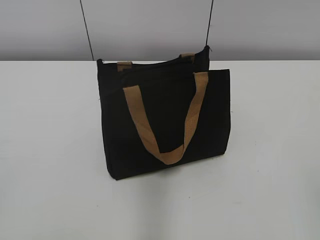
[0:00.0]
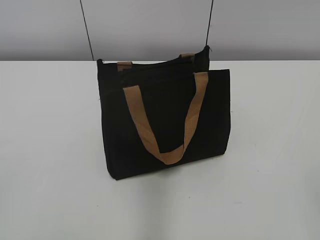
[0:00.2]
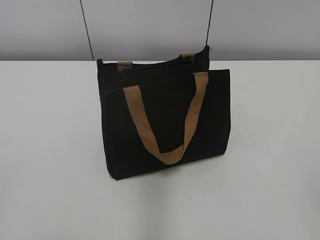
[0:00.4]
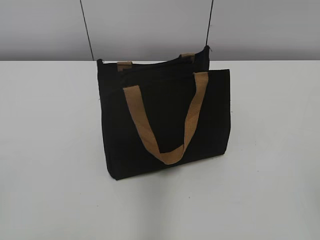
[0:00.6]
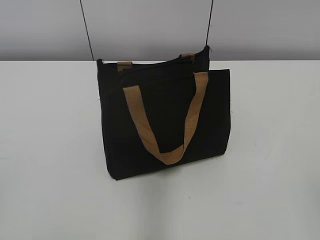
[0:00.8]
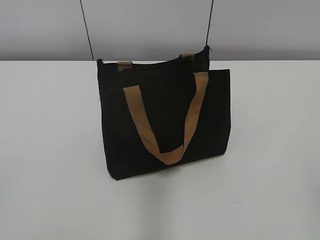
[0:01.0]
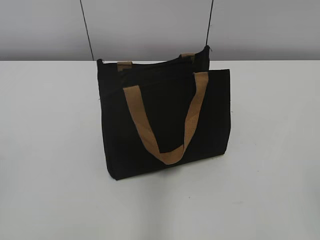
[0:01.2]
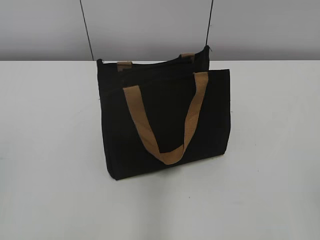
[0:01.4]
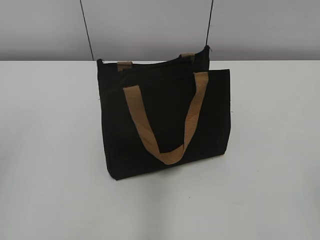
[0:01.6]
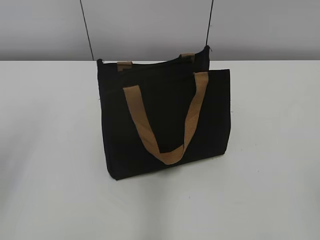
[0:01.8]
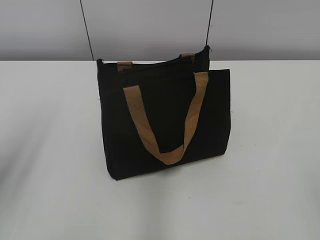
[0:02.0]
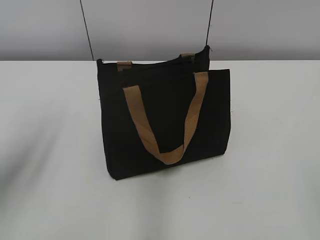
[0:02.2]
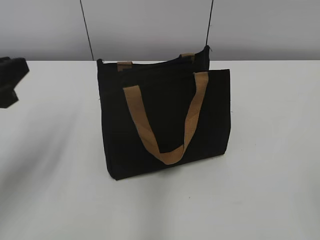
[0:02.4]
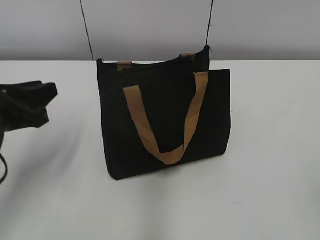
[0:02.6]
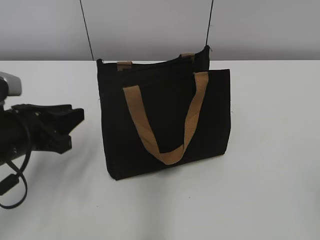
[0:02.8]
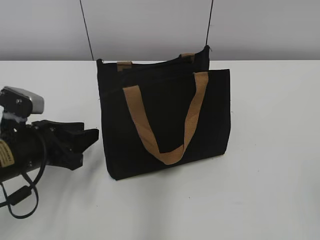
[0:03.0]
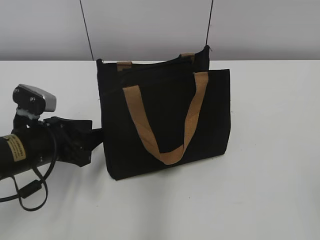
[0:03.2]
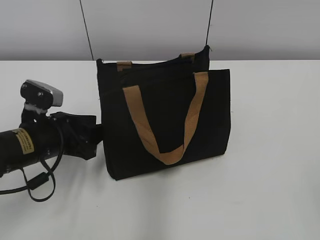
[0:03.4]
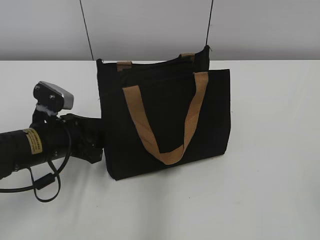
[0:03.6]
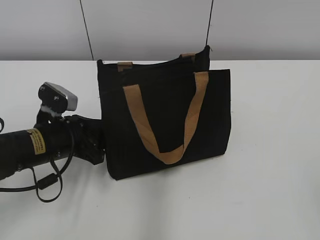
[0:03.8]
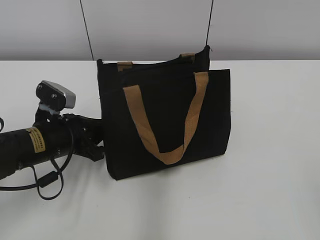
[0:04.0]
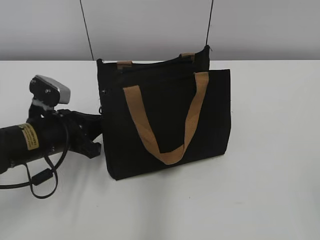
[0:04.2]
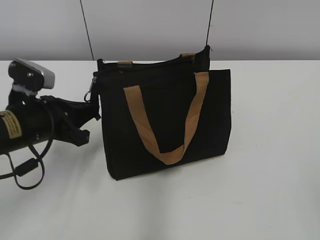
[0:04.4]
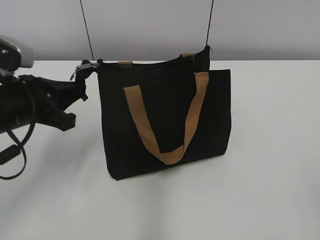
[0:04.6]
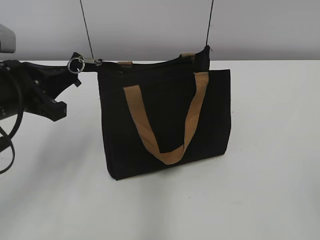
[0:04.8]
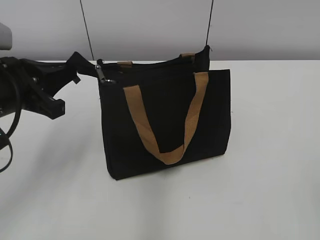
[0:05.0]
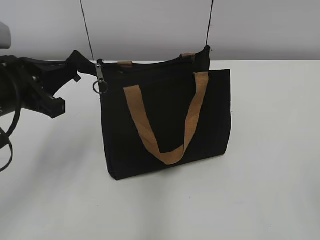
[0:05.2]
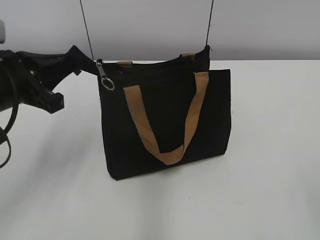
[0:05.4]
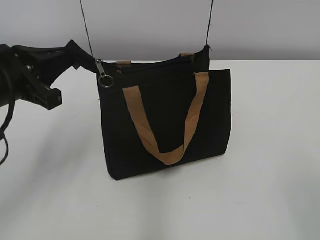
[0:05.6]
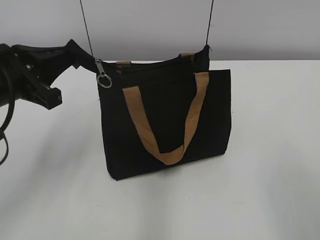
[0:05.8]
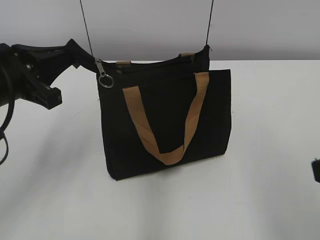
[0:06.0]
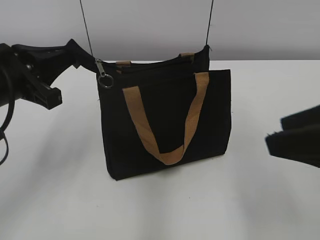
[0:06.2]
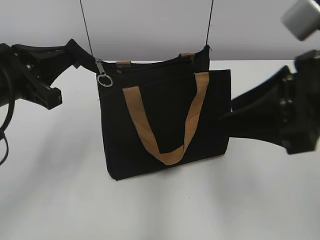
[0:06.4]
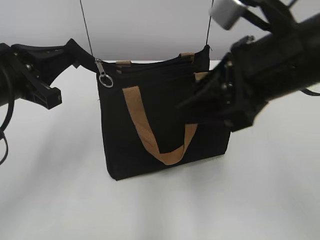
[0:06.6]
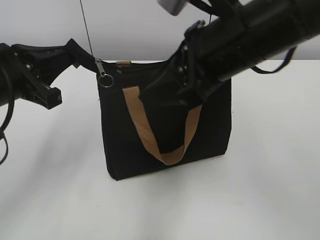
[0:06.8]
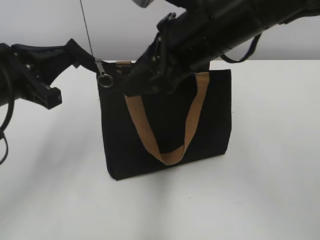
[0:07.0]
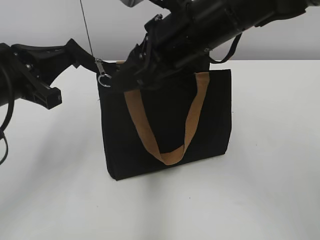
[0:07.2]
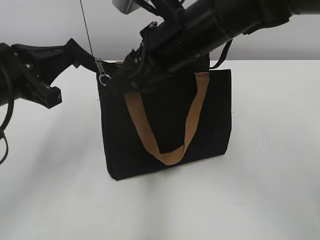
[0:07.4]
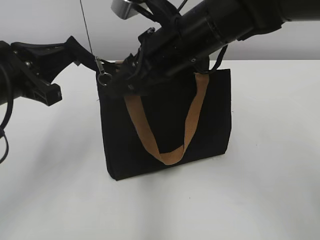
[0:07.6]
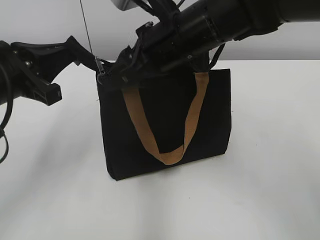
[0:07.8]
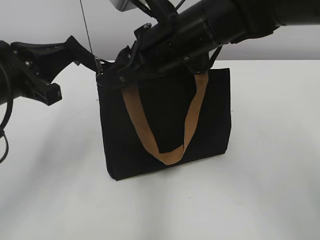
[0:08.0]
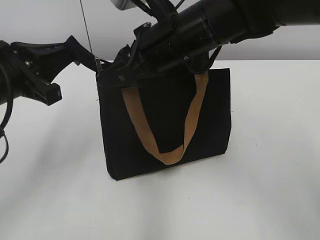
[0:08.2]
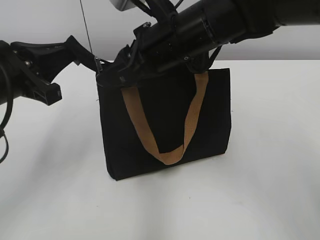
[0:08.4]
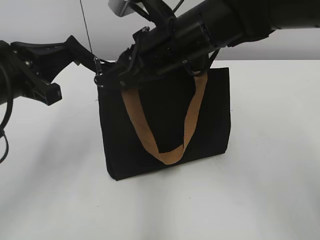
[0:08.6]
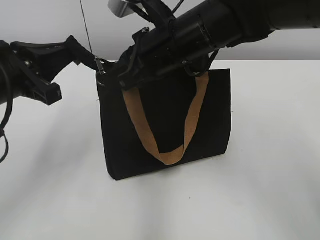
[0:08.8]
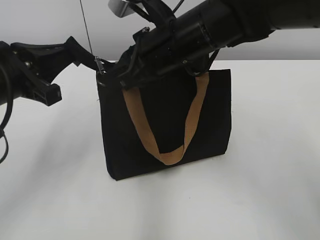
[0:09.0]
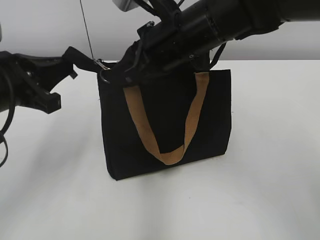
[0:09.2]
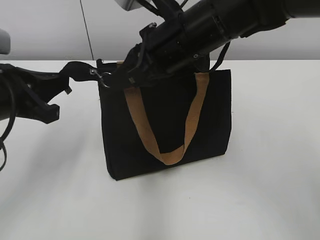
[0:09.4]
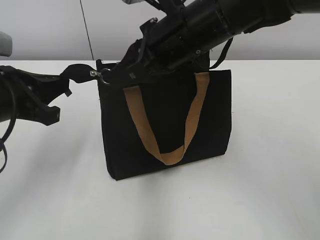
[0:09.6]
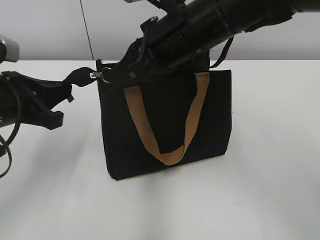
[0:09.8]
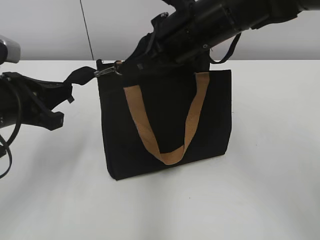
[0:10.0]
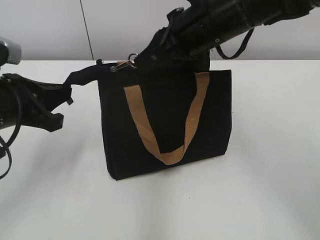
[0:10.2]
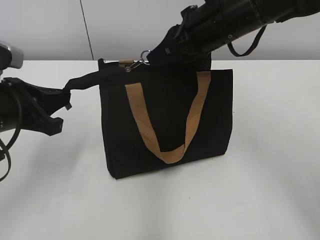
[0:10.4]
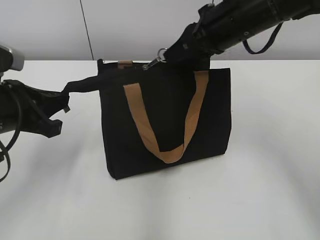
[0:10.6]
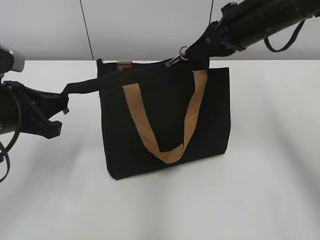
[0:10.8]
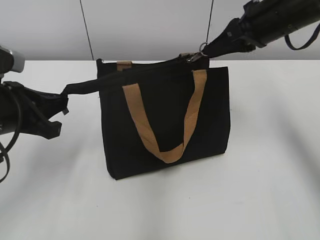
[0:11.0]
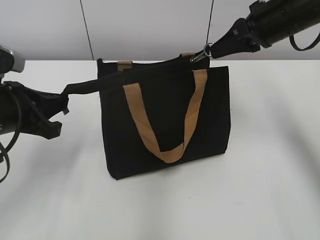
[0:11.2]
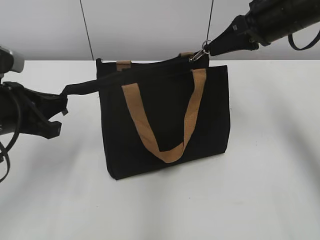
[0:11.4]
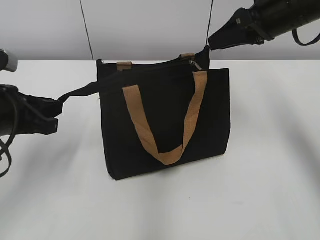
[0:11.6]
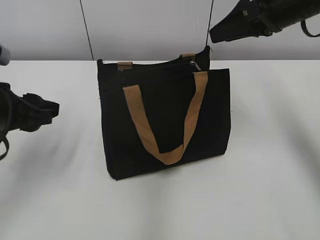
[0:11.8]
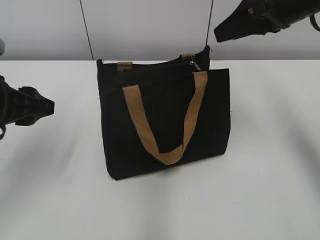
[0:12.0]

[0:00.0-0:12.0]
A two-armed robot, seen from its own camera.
Step, 0:00.0 to 0:11.4: Zip up the bag with your right hand.
Step, 0:11.6 to 0:11.8: Grab the zipper with your left hand.
0:01.6 to 0:03.0: The left gripper is displaced downward, forward and to the right by roughly 30 cm.
0:03.0 to 0:04.4: The left gripper closes its fingers.
0:04.4 to 0:06.0: The left gripper goes approximately 10 cm upward, while the right gripper heads forward, covering some 10 cm.
0:06.0 to 0:07.6: The right gripper is displaced forward and to the left by roughly 30 cm.
0:07.6 to 0:09.0: The right gripper closes.
0:09.0 to 0:10.4: The right gripper moves to the right, some 5 cm.
0:10.4 to 0:12.0: The right gripper shifts about 10 cm to the right, and opens up. The left gripper opens.

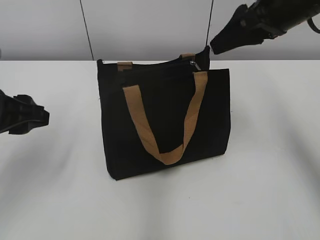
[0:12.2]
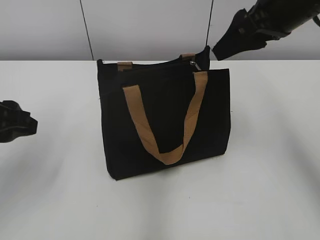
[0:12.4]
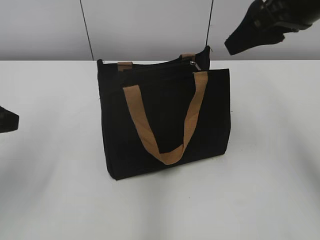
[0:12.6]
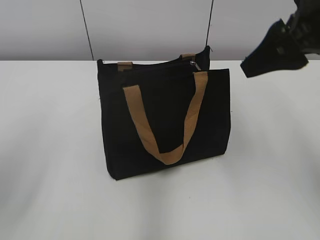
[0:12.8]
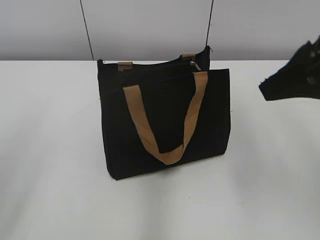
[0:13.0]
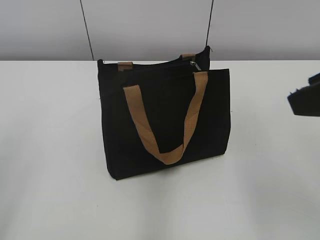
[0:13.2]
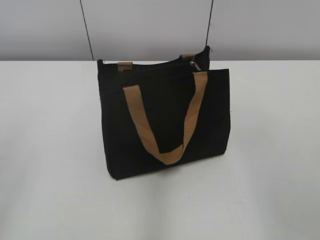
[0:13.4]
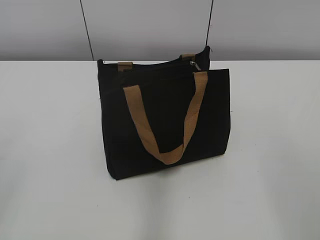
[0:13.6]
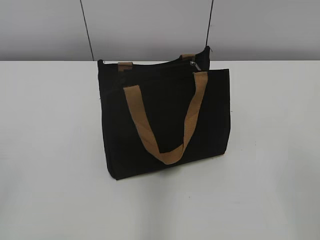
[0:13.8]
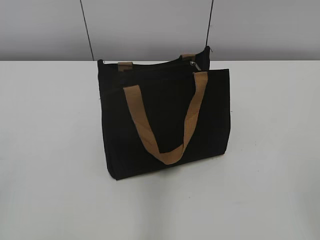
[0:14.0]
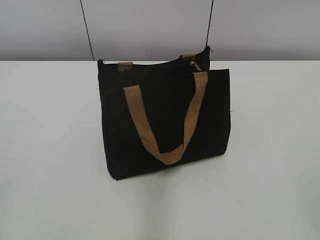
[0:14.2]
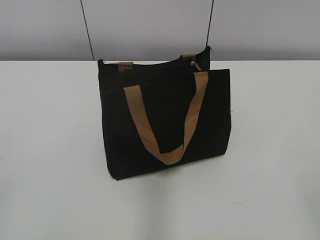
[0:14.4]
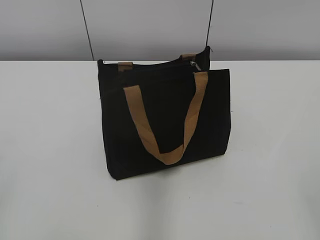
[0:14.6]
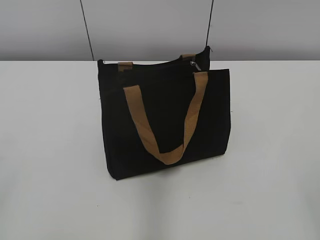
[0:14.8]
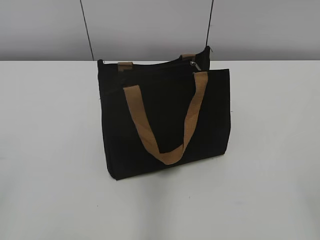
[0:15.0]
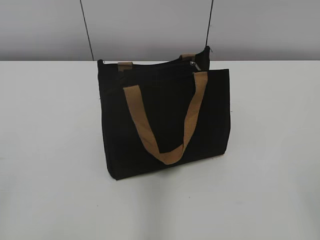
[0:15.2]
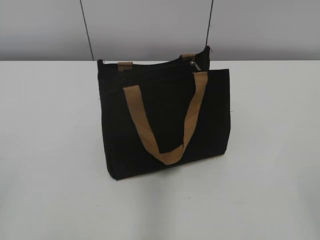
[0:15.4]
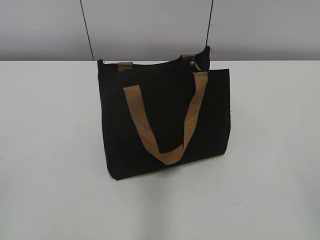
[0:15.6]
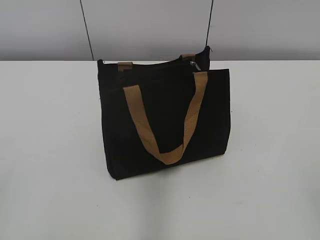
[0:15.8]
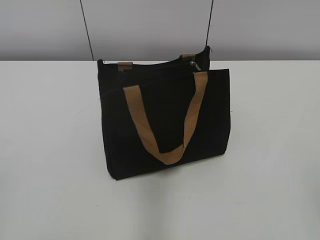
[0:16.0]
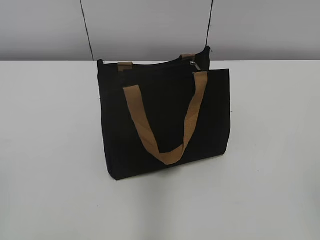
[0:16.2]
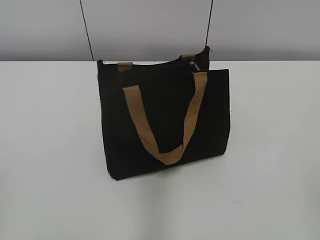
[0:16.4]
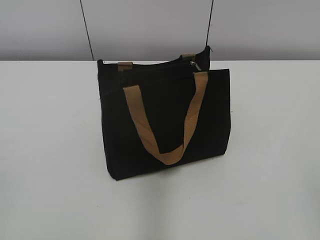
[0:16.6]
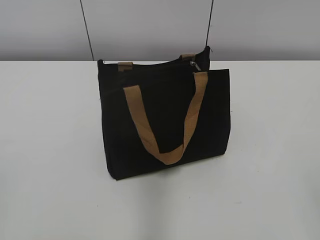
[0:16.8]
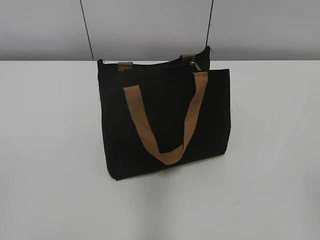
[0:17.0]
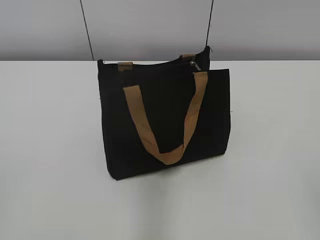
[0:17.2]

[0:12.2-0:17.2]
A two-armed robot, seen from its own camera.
0:12.2 to 0:13.8: Both grippers move backward, some 25 cm.
